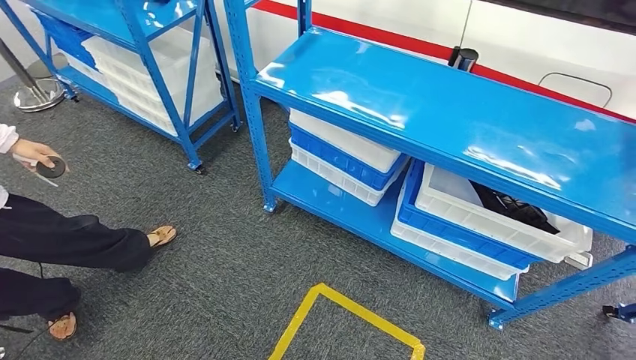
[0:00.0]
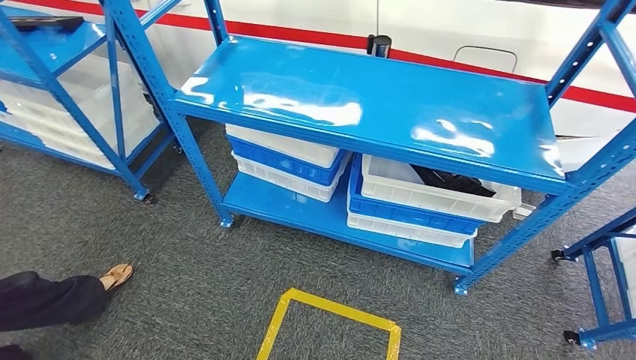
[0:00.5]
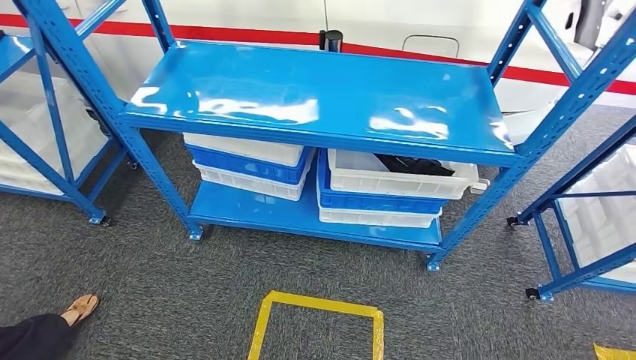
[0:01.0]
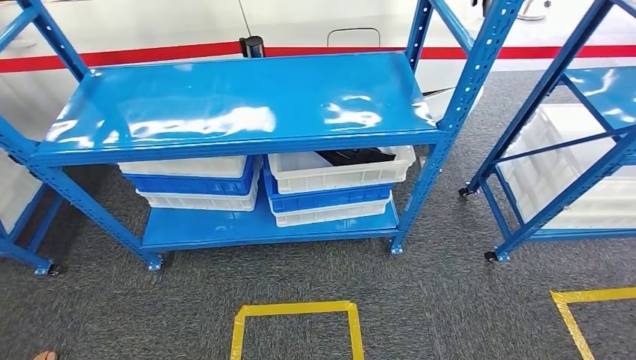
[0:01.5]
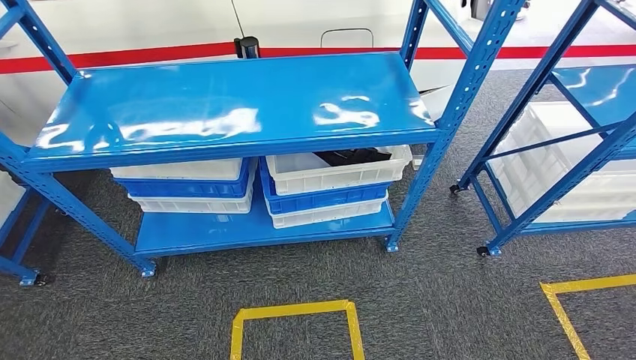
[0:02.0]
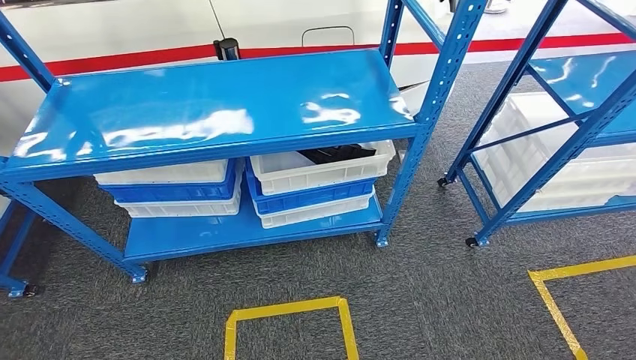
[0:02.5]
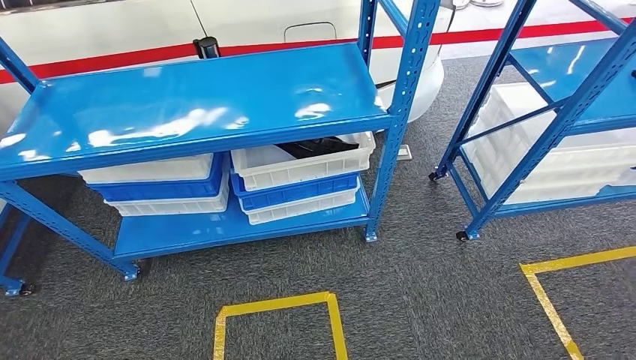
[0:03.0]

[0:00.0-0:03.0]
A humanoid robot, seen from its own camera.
Step, 0:00.0 to 0:03.0: Move to the initial position of the shelf.
